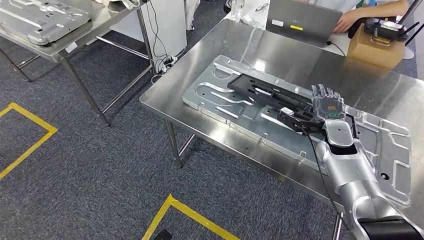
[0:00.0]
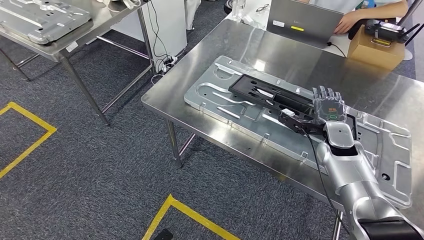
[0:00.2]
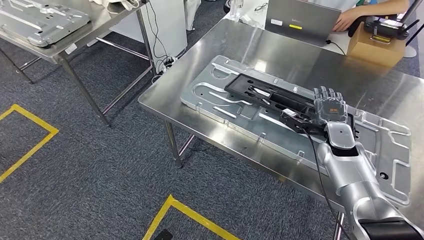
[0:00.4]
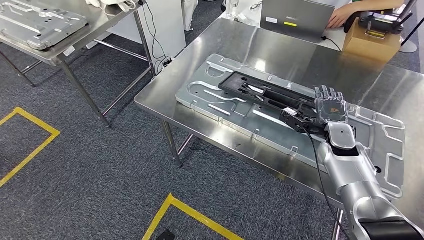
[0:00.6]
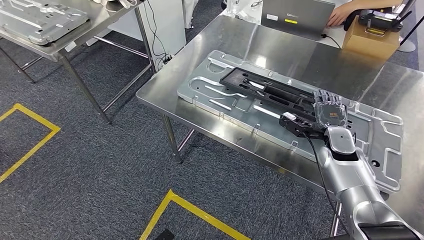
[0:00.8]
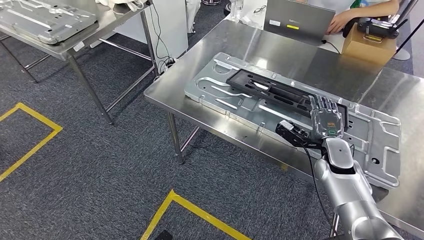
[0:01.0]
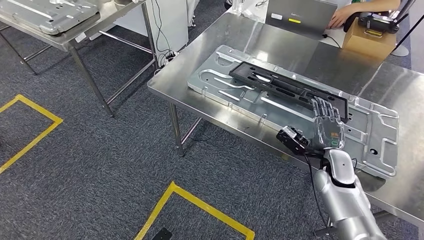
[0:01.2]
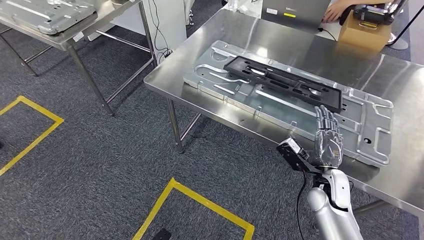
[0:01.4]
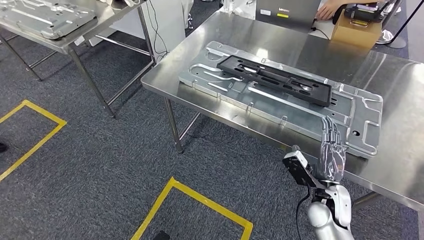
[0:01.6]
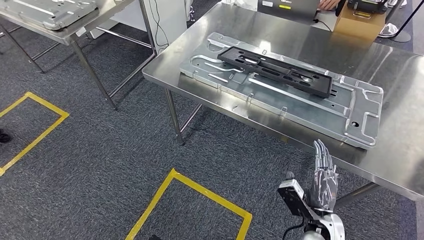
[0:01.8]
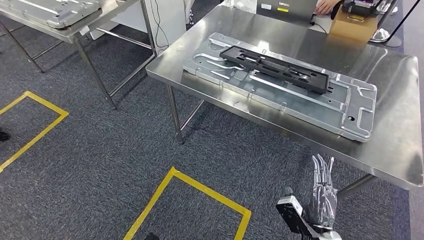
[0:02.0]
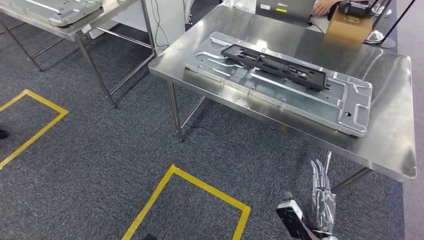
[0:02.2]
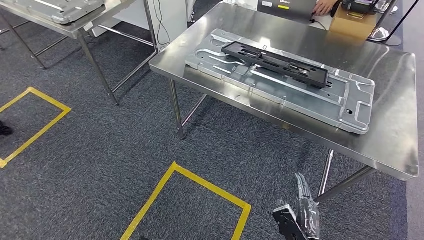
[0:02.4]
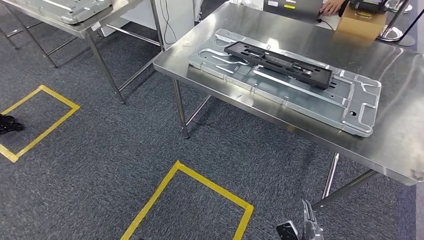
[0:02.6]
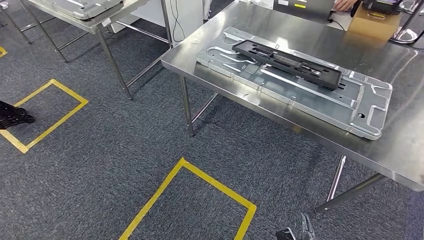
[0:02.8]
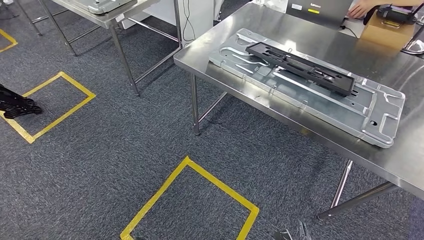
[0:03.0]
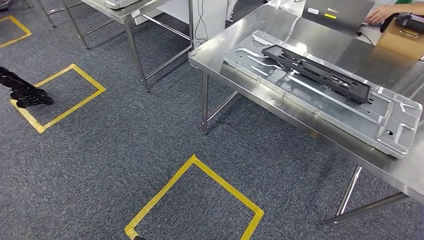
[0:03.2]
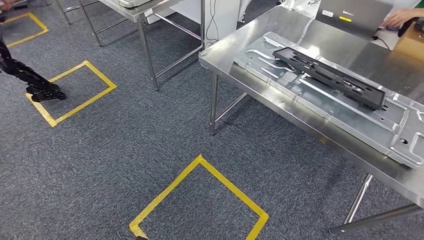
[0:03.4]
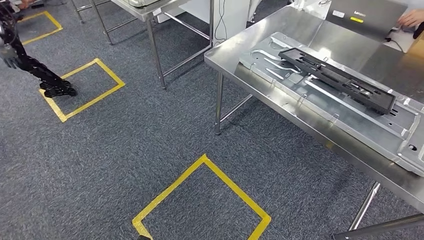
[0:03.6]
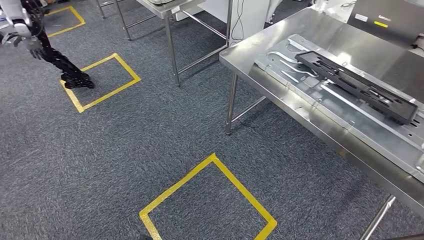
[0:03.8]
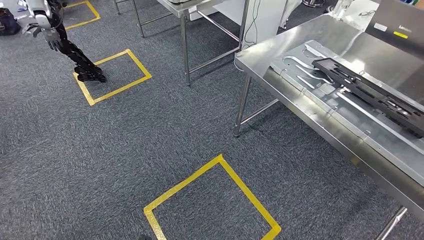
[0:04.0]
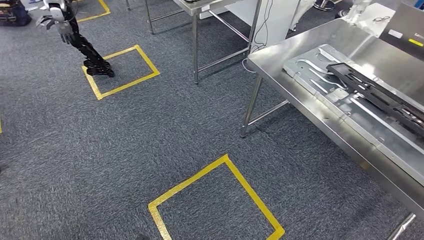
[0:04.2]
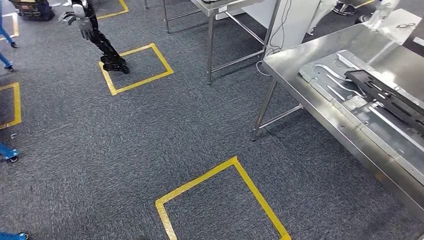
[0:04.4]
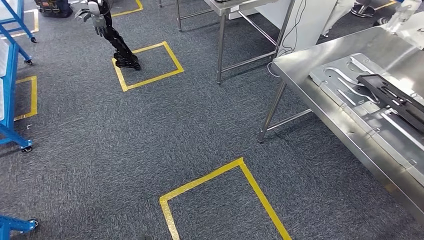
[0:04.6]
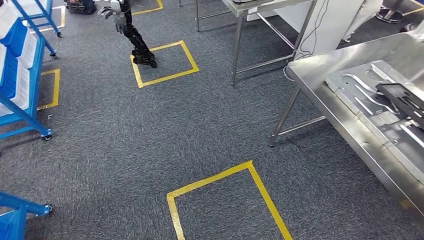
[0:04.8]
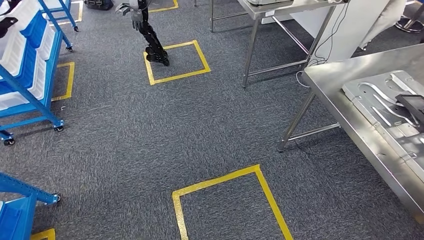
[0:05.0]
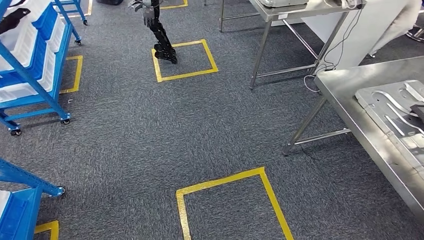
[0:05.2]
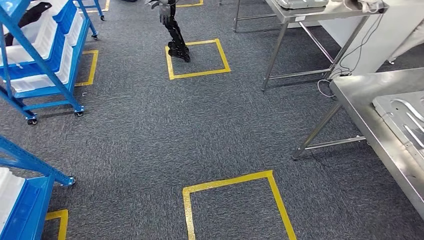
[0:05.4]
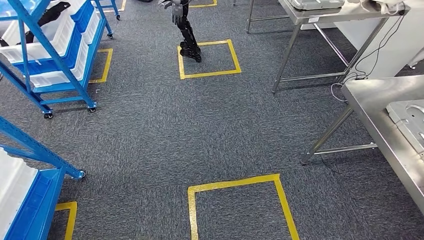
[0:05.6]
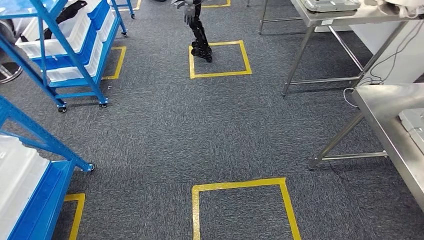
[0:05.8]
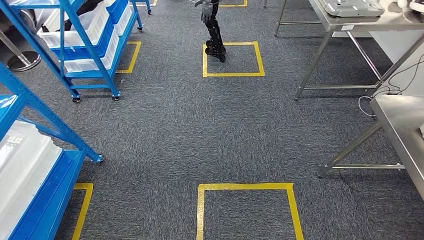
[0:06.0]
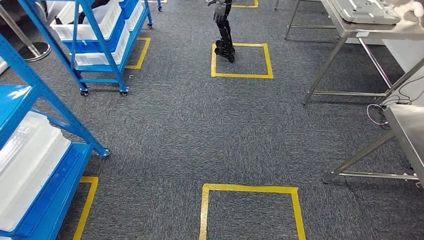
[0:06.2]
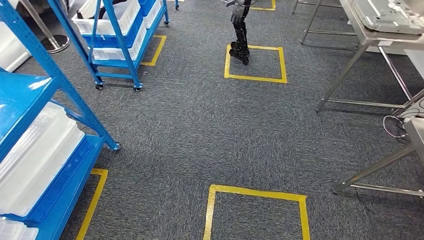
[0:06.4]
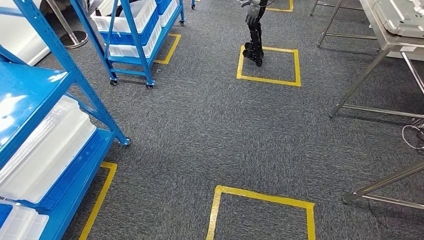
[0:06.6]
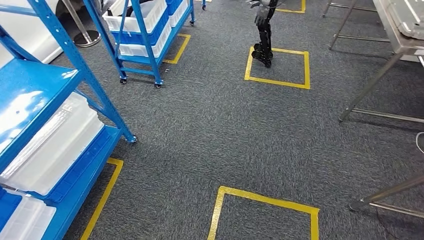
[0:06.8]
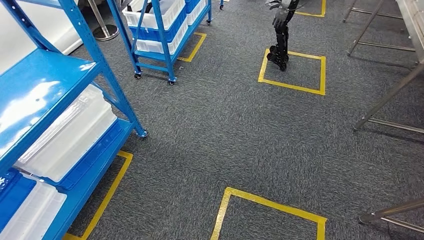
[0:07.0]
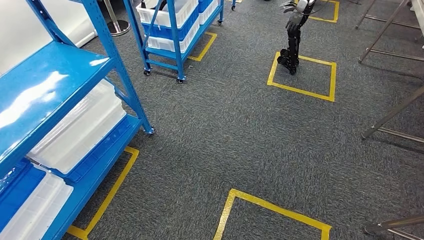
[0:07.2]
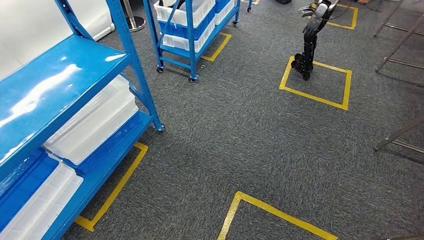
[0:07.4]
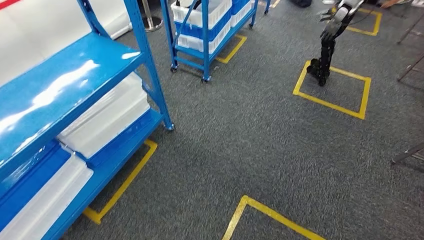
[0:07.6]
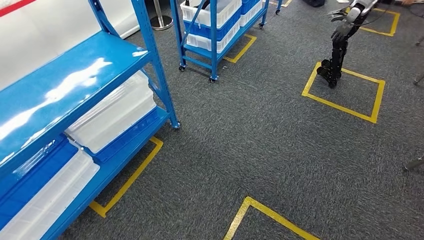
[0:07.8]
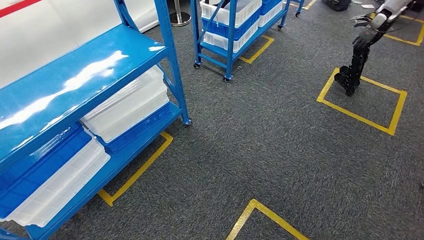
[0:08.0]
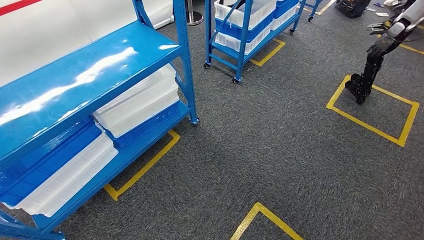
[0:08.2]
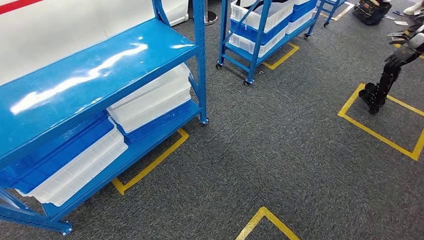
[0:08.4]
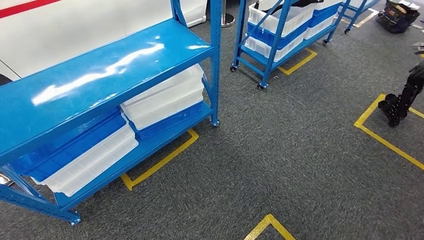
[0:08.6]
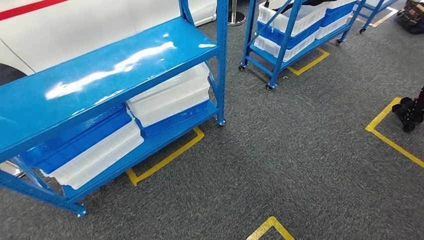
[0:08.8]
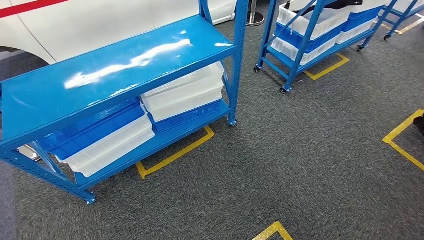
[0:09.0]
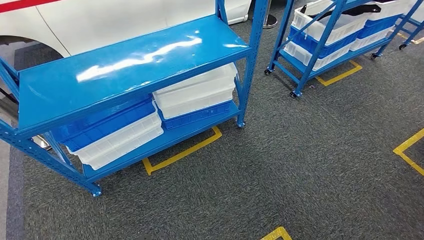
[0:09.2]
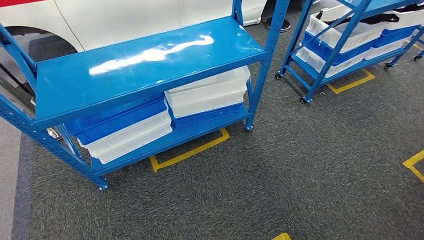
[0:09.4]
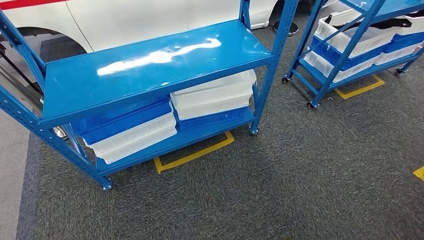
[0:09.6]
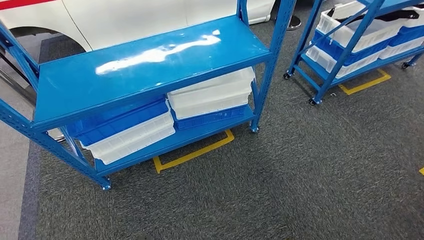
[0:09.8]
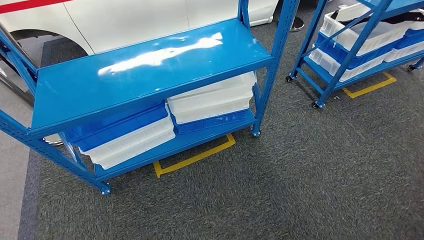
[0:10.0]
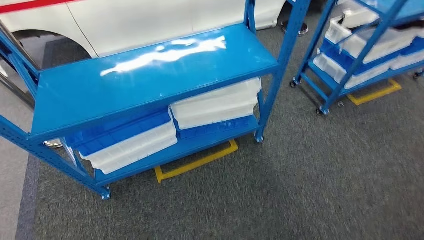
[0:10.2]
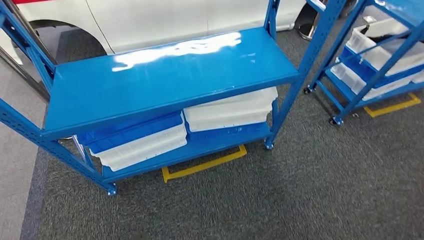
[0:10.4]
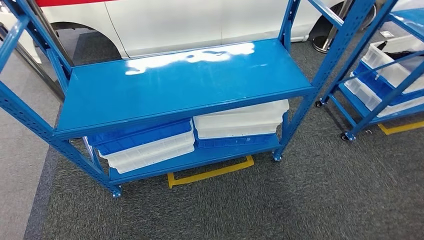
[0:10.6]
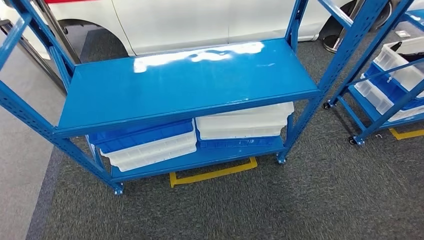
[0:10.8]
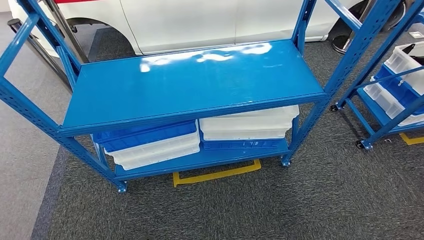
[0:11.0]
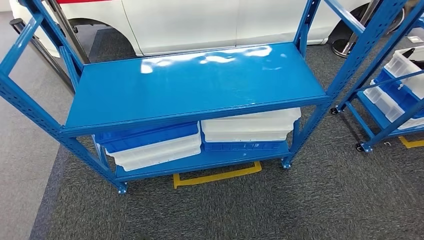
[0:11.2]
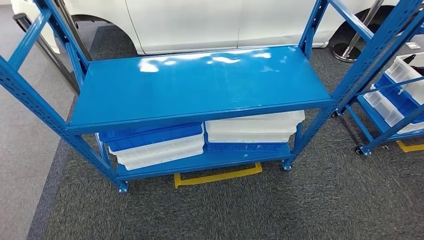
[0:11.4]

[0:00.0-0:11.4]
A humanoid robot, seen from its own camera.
Step, 0:00.0 to 0:02.0: Insert the large material into the corresponding slot on the workbench.

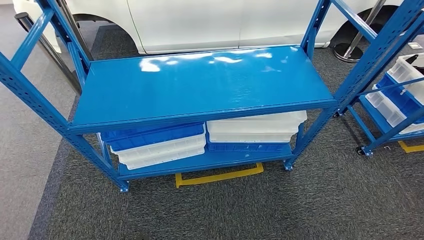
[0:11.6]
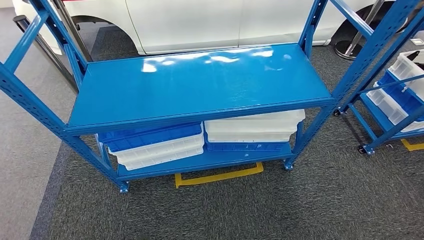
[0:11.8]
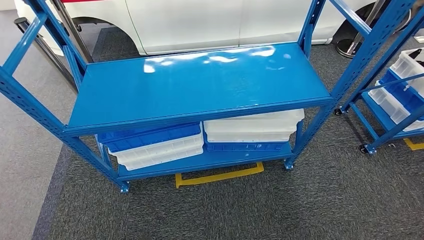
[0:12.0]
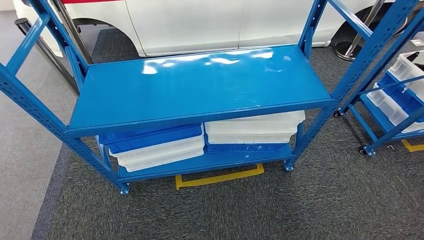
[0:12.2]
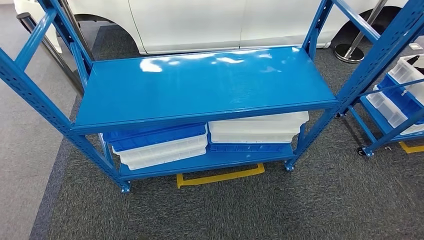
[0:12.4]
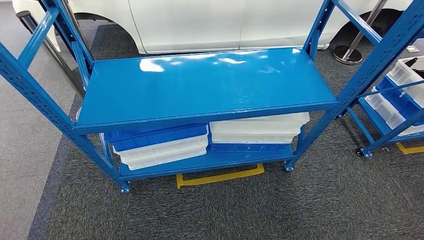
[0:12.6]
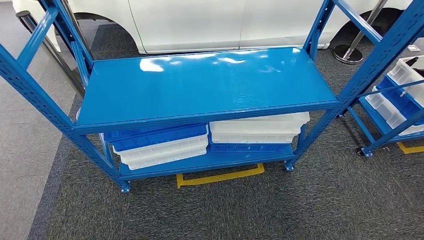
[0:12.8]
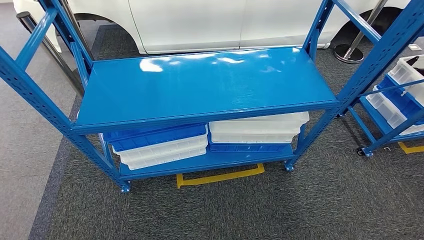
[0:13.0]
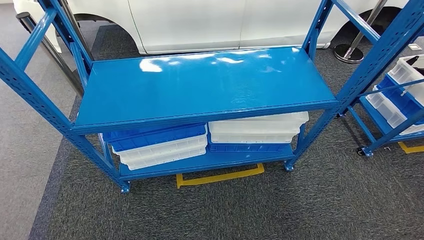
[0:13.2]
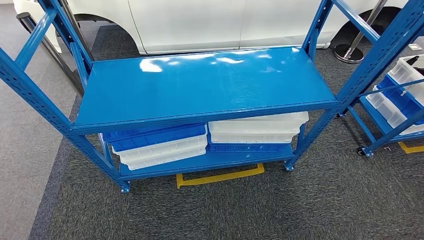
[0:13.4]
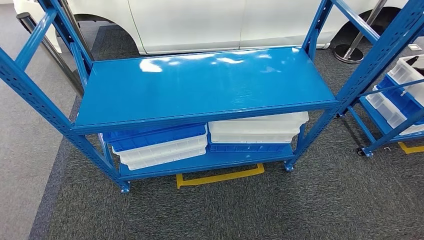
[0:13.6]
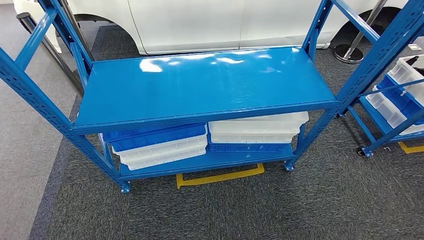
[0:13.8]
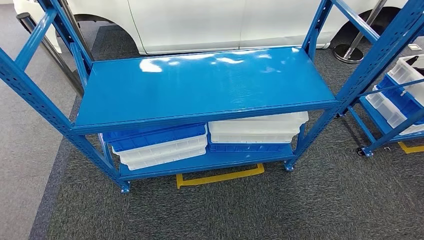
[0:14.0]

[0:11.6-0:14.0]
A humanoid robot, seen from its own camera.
Step, 0:11.6 to 0:14.0: Move to the initial position of the shelf.
0:11.6 to 0:12.8: Both hands stay about where they are.
0:12.8 to 0:14.0: The left hand shifts roughly 10 cm to the left and backward.
